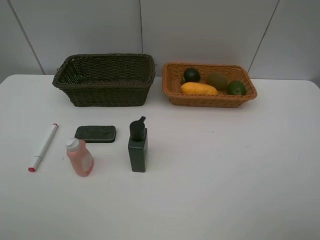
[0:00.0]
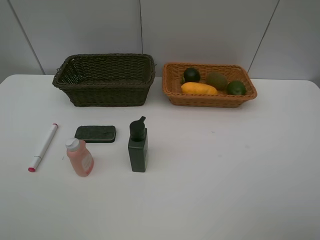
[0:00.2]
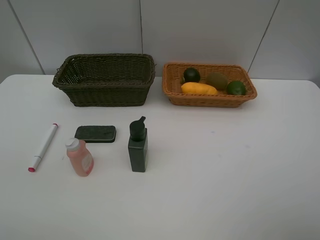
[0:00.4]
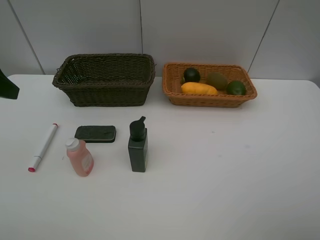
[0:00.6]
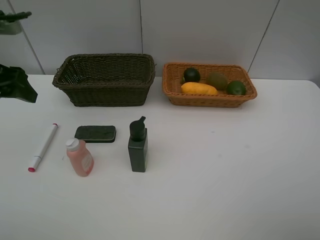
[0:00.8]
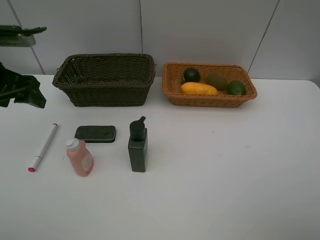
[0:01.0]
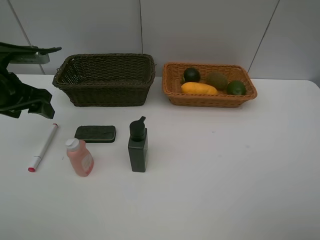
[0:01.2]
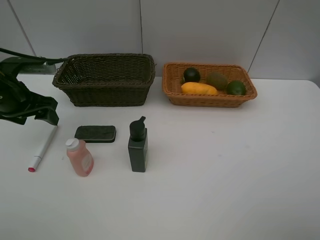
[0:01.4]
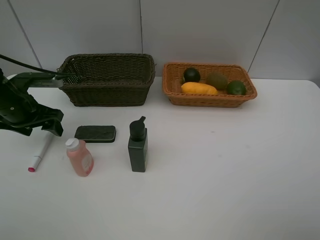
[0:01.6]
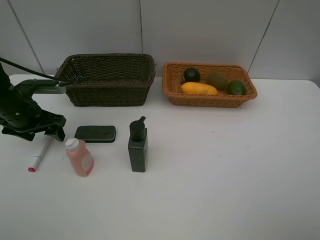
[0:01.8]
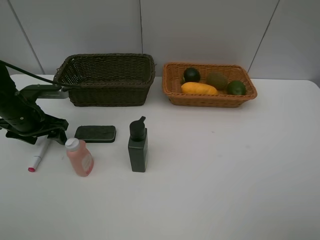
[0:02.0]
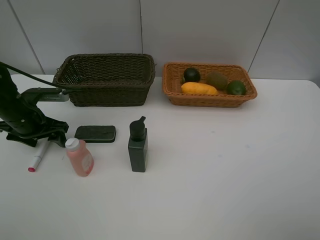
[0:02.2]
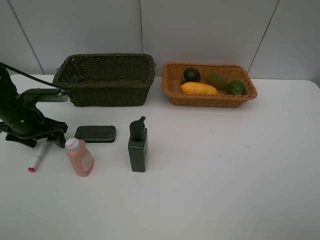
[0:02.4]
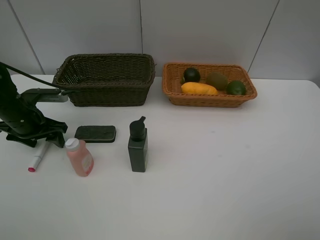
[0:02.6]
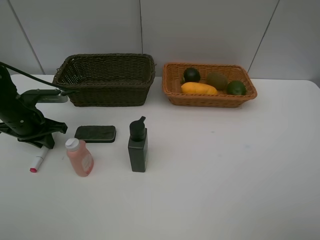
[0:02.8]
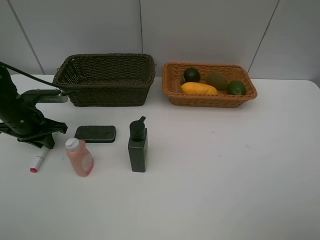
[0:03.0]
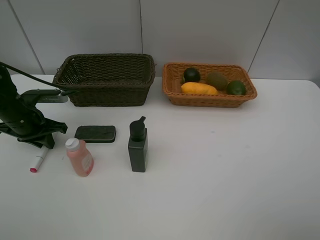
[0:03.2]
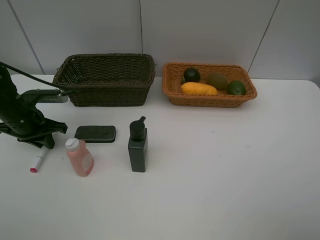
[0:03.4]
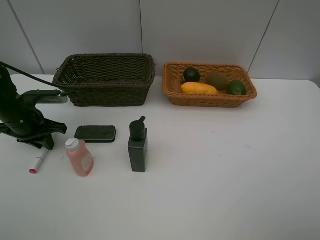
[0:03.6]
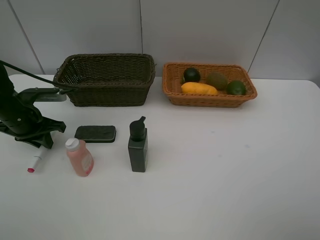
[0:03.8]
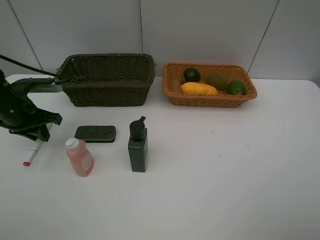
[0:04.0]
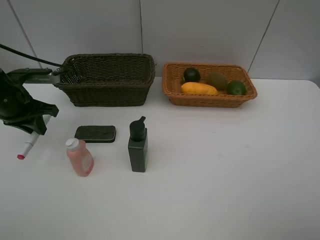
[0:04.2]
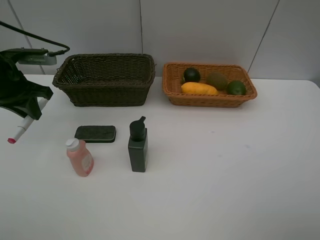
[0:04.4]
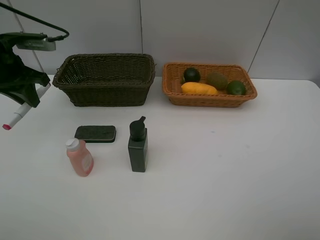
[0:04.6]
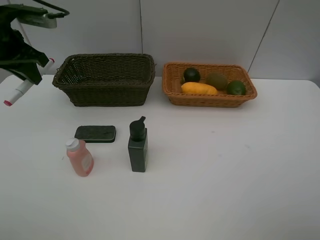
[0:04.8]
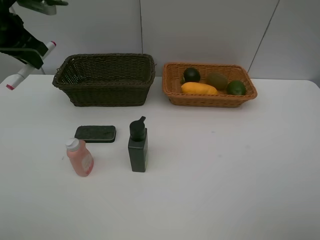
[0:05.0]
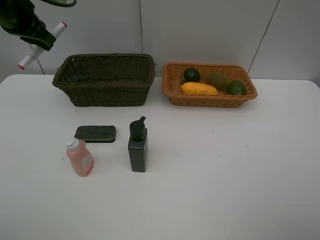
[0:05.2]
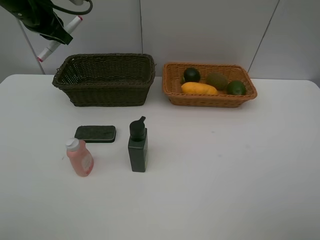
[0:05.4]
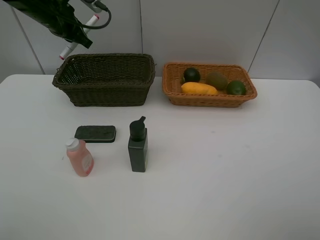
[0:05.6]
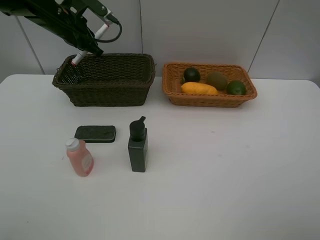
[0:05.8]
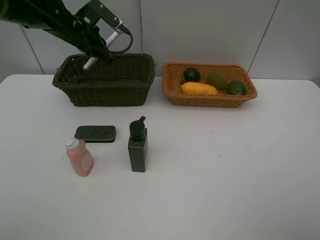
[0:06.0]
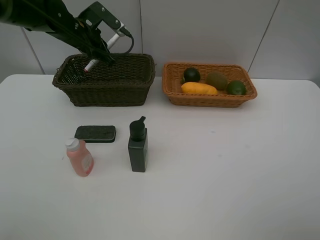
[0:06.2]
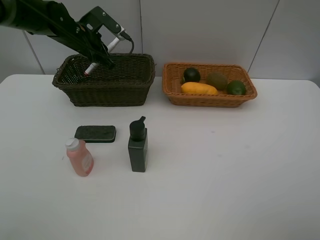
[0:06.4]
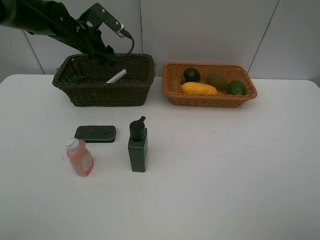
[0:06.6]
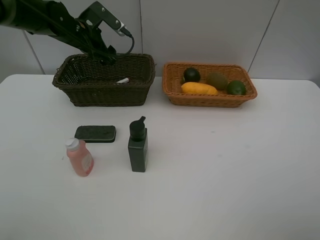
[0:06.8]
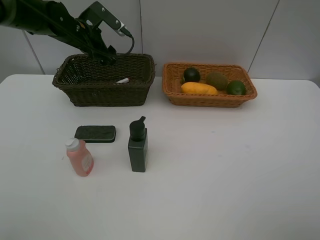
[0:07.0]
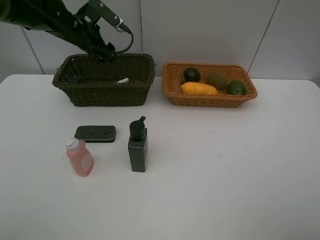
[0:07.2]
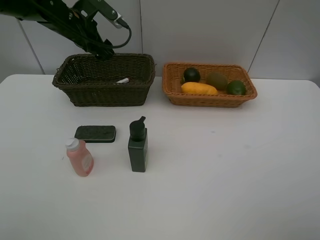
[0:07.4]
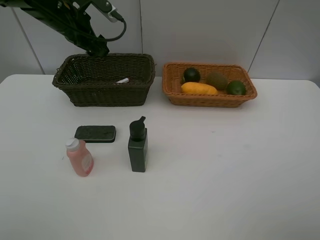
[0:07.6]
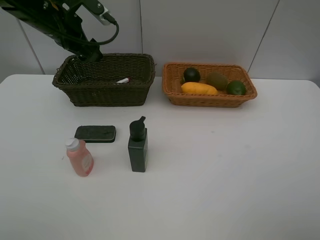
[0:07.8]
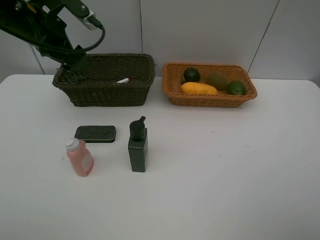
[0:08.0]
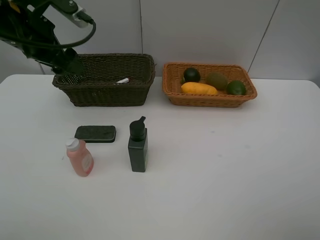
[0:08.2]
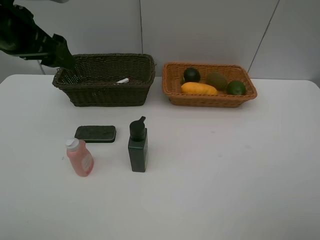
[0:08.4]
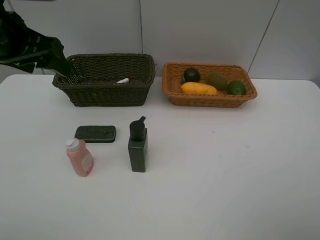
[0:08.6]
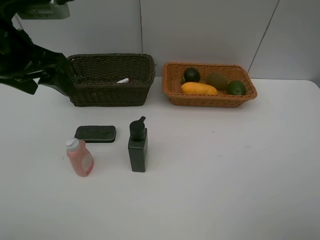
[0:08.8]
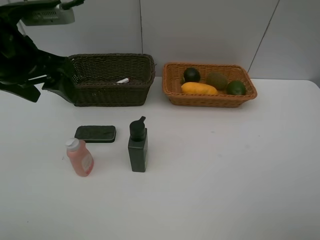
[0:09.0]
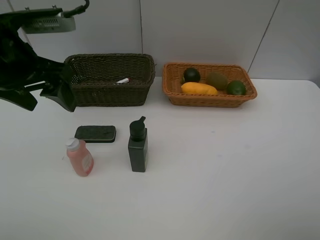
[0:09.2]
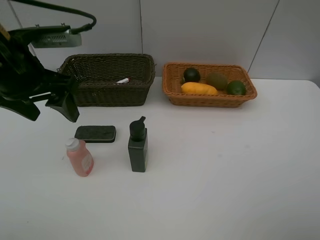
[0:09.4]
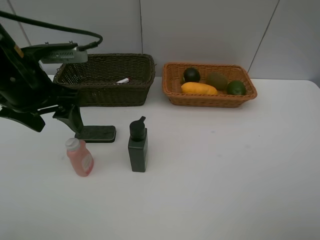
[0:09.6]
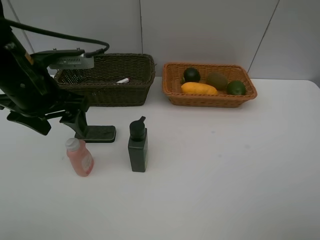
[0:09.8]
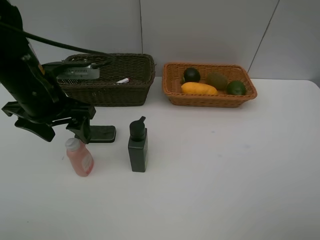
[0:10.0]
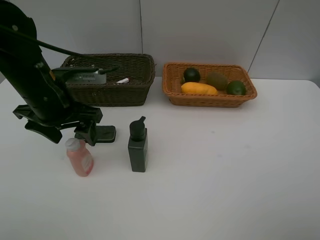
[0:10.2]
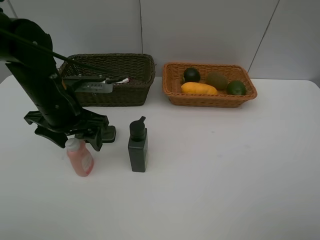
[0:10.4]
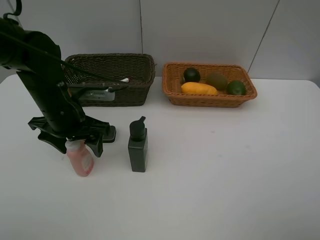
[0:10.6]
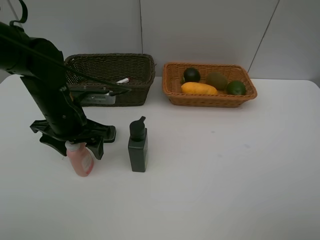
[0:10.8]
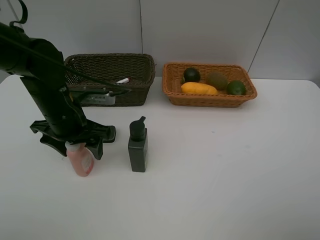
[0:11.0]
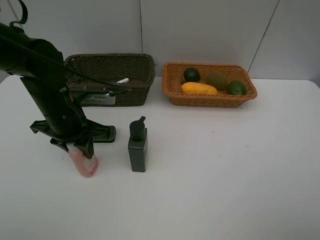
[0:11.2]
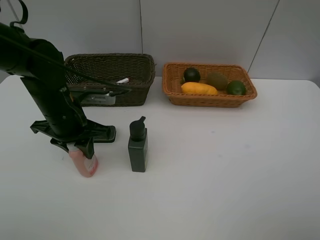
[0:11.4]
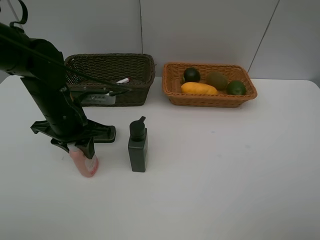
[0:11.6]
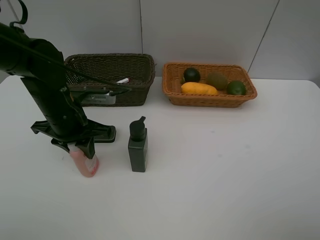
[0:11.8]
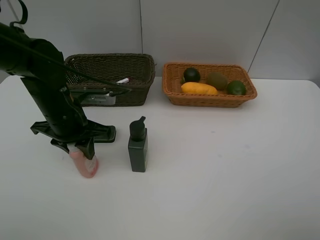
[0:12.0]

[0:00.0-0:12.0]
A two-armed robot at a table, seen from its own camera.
Task of the whole recording: Place multiple objects separately in different baskets.
Step, 0:00.0 to 0:03.8: Pick up the red marker with left gripper.
Step, 0:04.0 to 0:06.8: Place the red marker in the dark basket with left gripper.
0:00.0 to 0:01.6: The left gripper is displaced forward and downward by approximately 30 cm.
0:01.6 to 0:03.0: The left gripper closes its fingers.
0:03.0 to 0:04.4: The left gripper heads upward, covering about 10 cm.
0:04.4 to 0:06.0: The left gripper is displaced forward and to the right by some 15 cm.
0:06.0 to 0:07.6: The left gripper moves approximately 5 cm, and opens up.
0:07.6 to 0:09.0: The left gripper moves backward, approximately 20 cm.
0:09.0 to 0:10.4: The left gripper moves downward, some 10 cm.
0:10.4 to 0:12.0: The left gripper closes its fingers.

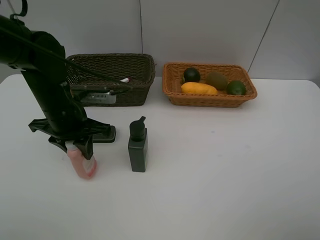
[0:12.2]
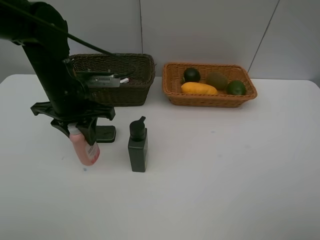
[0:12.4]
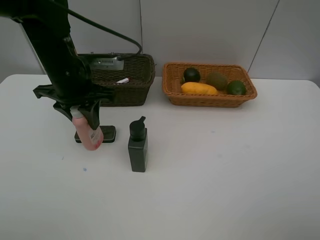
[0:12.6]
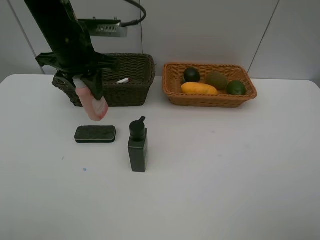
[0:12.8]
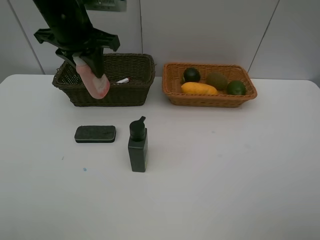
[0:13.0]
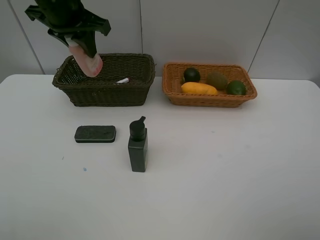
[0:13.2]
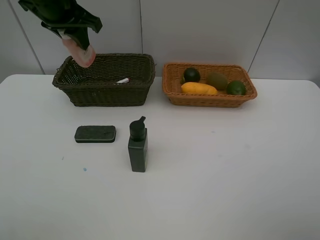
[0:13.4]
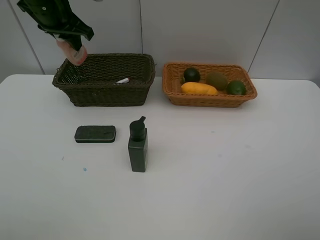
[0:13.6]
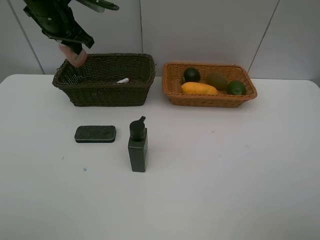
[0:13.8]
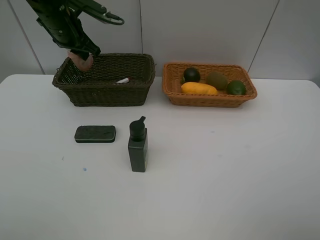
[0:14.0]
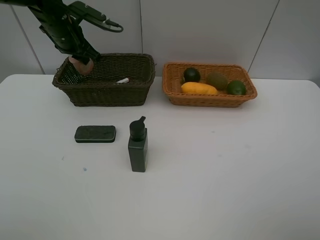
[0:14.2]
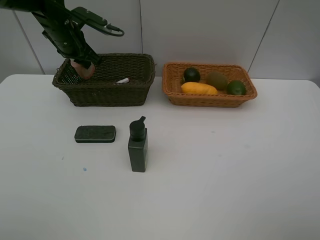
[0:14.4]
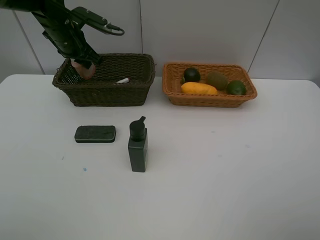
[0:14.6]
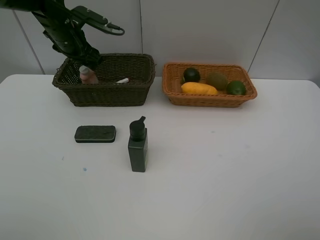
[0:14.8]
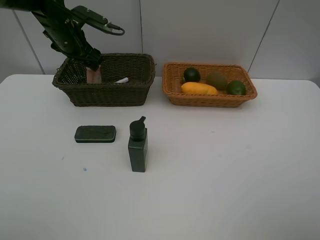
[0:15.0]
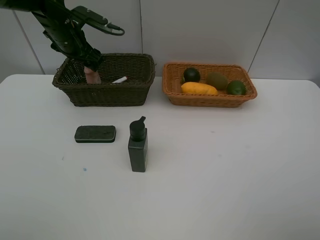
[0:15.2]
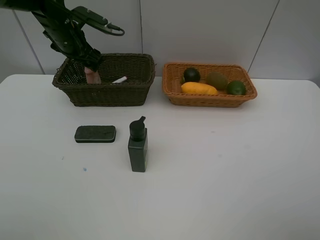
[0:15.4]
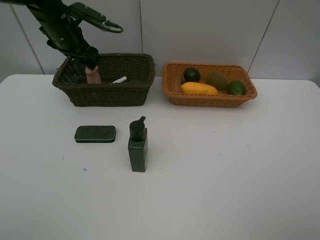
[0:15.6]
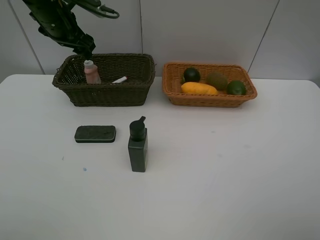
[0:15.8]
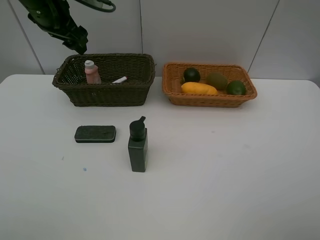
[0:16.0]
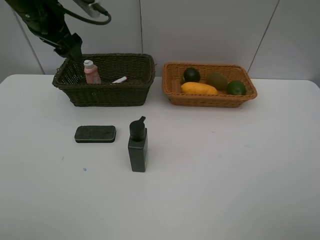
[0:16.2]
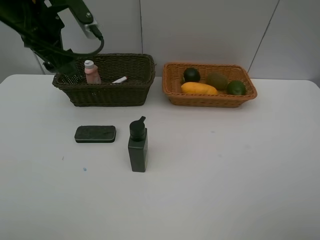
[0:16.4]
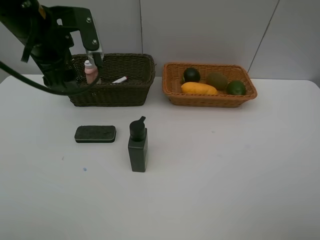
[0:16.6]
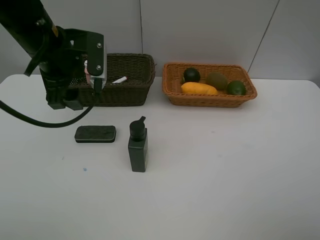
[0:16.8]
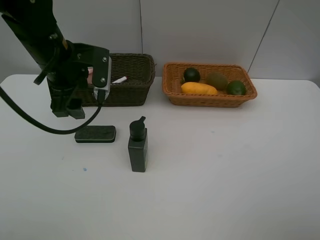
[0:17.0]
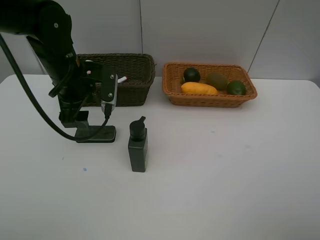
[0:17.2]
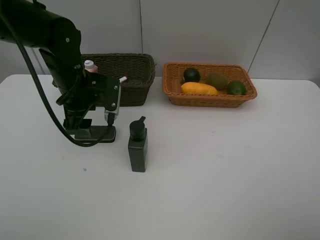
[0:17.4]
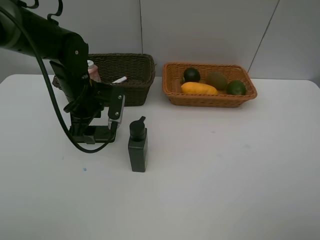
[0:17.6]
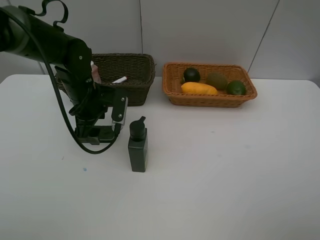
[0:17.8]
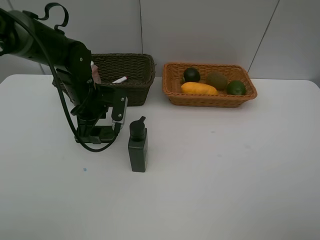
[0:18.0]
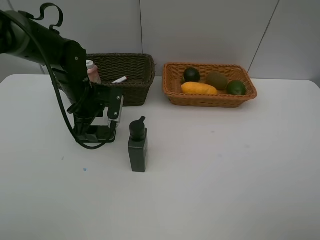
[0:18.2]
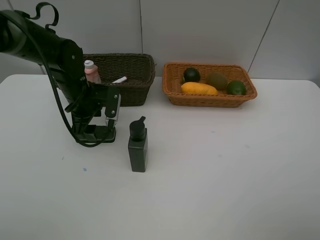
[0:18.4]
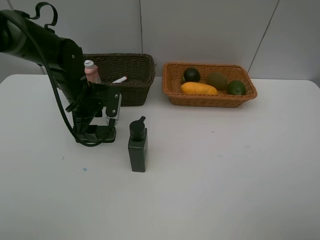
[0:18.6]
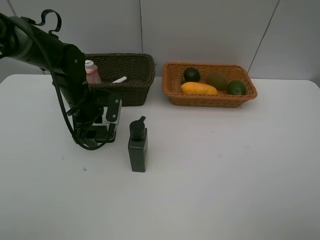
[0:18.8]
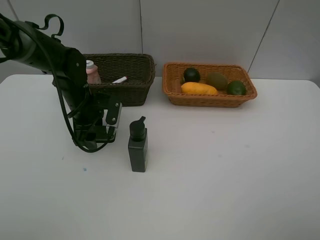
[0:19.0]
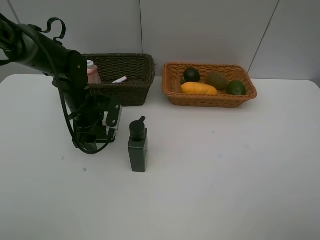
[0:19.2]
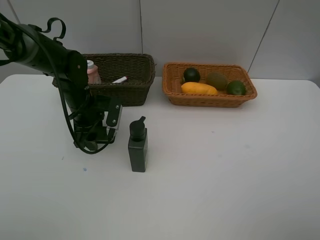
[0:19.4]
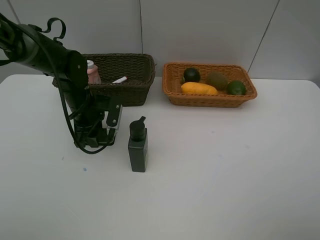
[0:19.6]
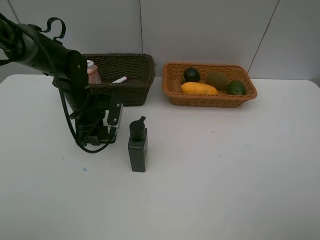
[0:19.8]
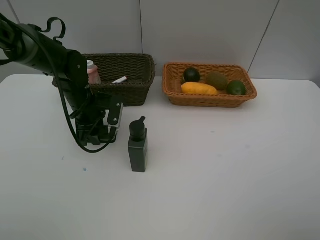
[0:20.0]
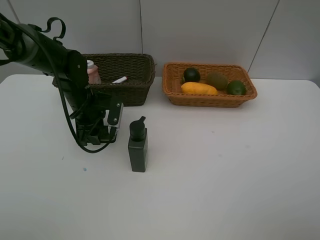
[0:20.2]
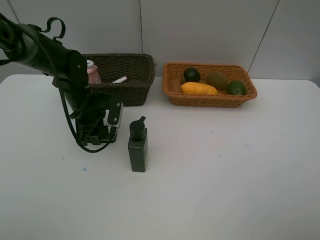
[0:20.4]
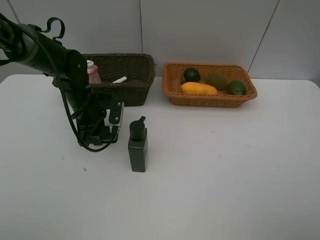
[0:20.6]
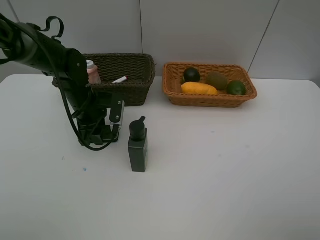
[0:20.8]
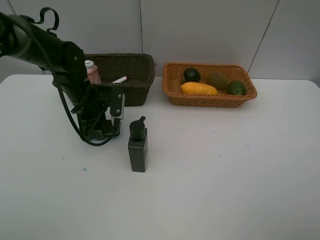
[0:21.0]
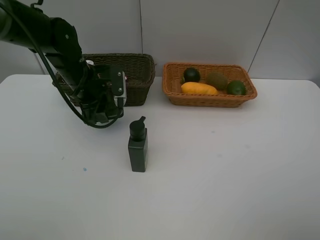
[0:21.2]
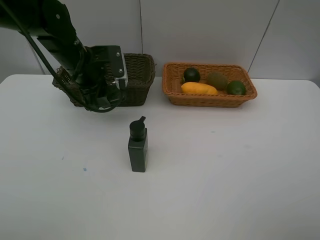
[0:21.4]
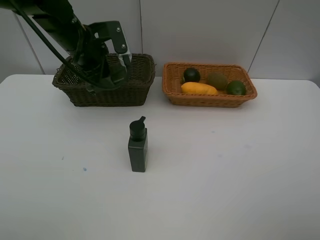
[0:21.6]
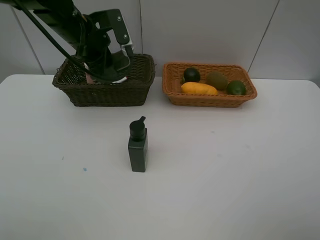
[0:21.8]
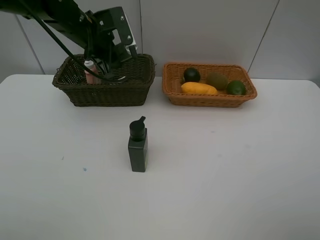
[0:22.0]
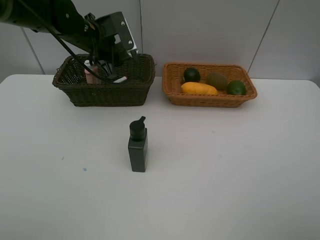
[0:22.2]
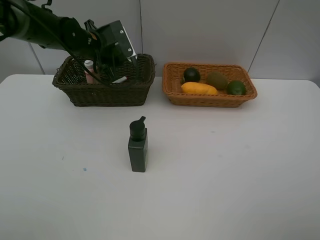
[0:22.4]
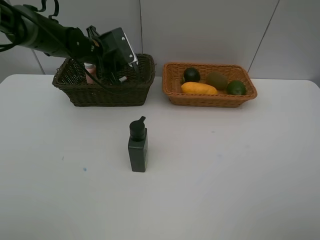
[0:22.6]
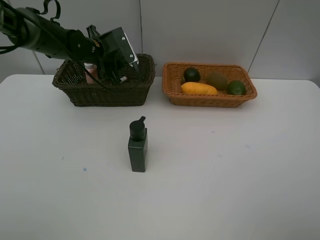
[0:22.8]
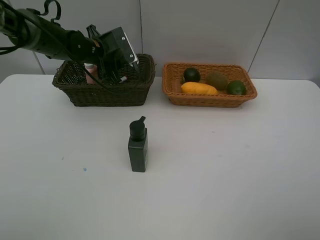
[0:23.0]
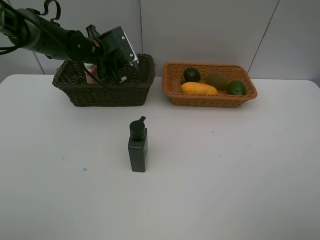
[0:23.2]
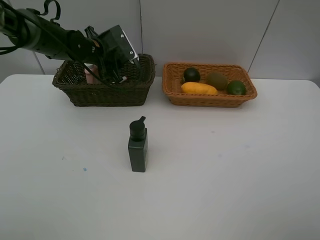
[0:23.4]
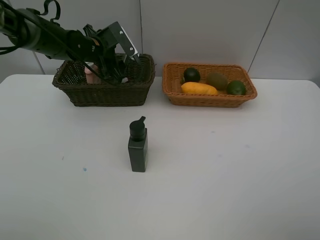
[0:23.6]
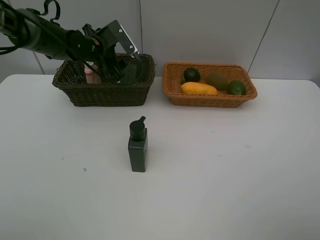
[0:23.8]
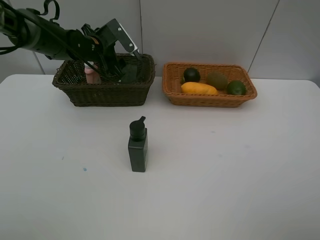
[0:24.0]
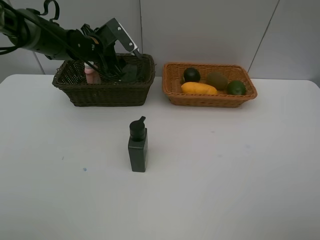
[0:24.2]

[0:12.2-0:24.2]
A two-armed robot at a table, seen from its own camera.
Task of the whole recording: Place multiple objects separately in different baskets.
Step, 0:12.6 to 0:15.6: Place the laundry detergent in the dark basket with left gripper.
Step, 0:15.8 to 0:21.0: Pick up blackboard eraser with left gripper.
0:12.2 to 0:13.8: The left gripper shifts about 20 cm forward and upward.
0:13.8 to 0:15.2: The left gripper moves downward, some 5 cm, and opens up.
0:15.2 to 0:16.6: The left gripper is displaced backward and upward by about 15 cm.
0:16.6 to 0:18.2: The left gripper is displaced downward by approximately 15 cm.
0:18.2 to 0:19.8: The left gripper closes its fingers.
0:19.8 to 0:21.2: The left gripper shifts about 5 cm upward.
0:21.2 to 0:22.6: The left gripper moves forward, some 10 cm.
0:22.6 to 0:24.2: The left gripper opens its fingers.
